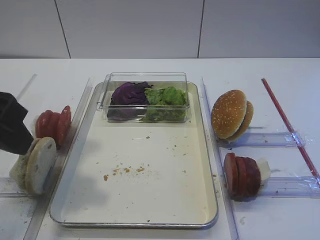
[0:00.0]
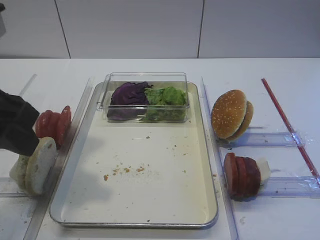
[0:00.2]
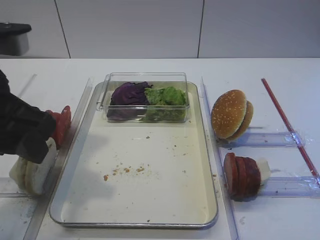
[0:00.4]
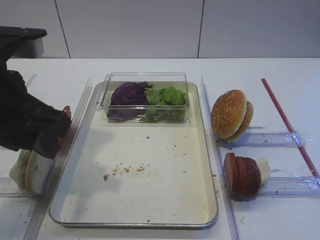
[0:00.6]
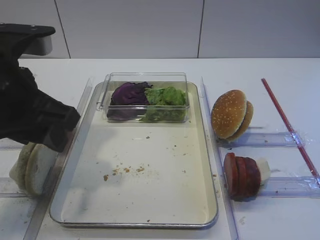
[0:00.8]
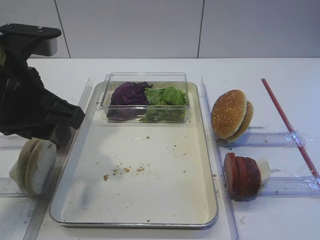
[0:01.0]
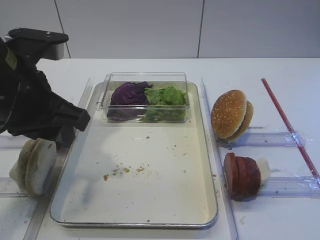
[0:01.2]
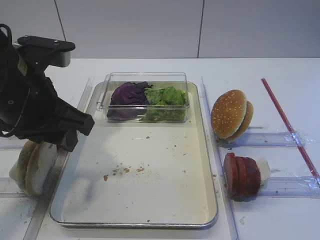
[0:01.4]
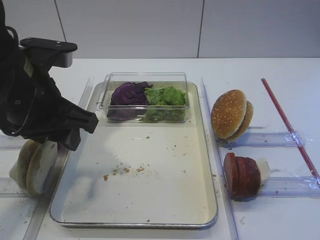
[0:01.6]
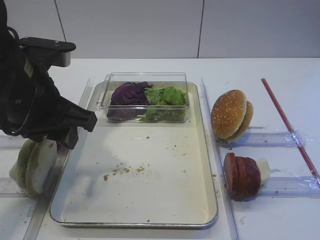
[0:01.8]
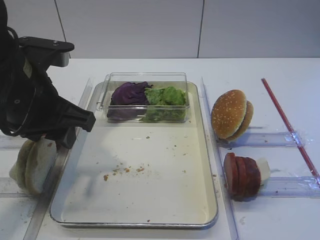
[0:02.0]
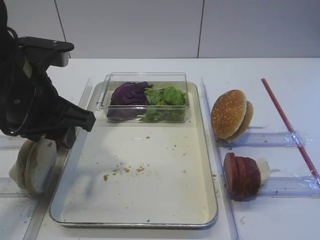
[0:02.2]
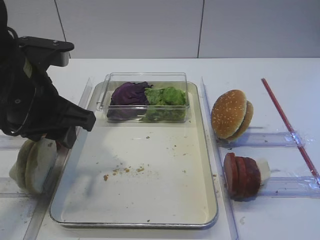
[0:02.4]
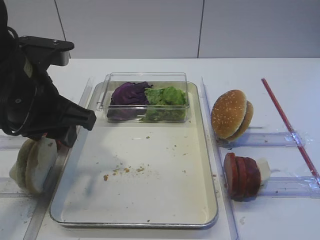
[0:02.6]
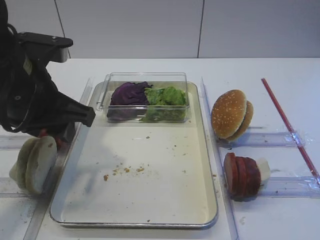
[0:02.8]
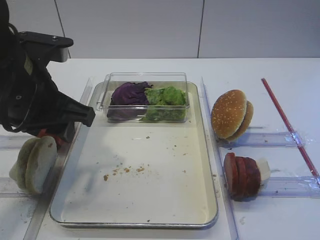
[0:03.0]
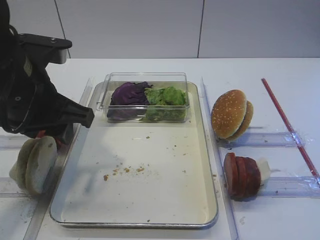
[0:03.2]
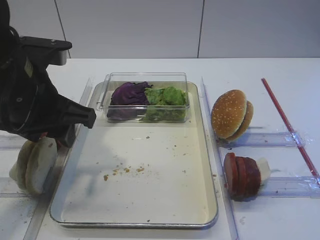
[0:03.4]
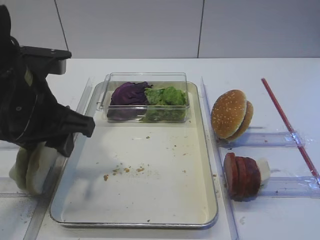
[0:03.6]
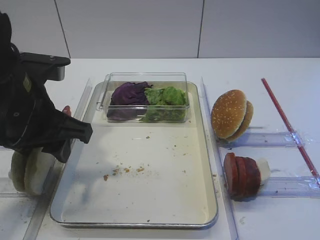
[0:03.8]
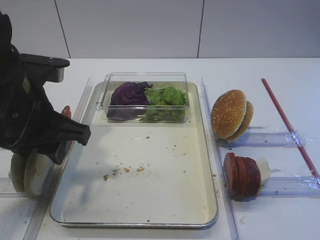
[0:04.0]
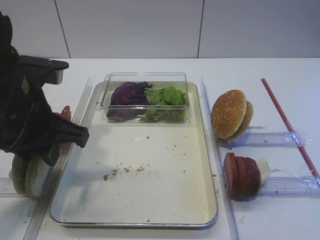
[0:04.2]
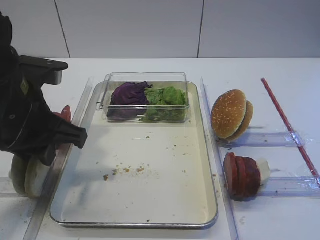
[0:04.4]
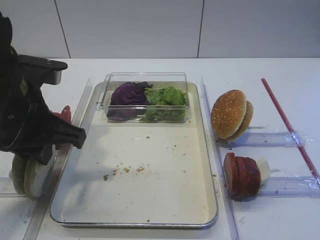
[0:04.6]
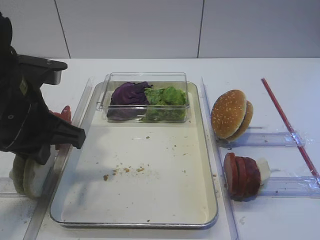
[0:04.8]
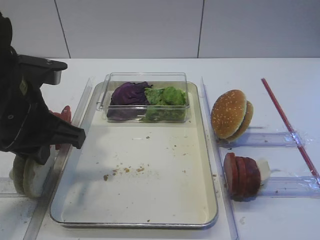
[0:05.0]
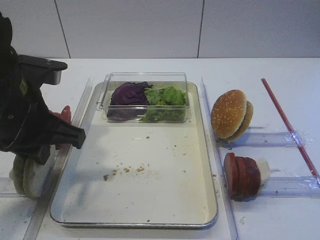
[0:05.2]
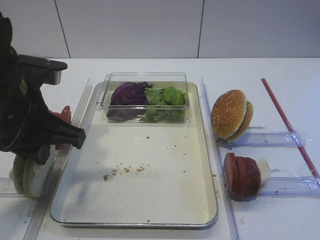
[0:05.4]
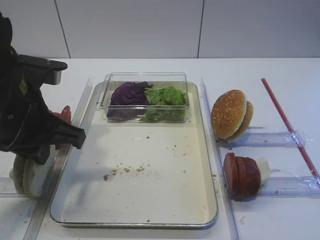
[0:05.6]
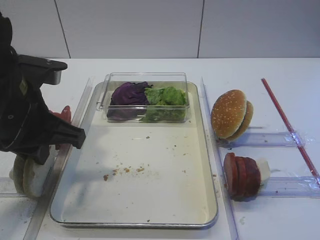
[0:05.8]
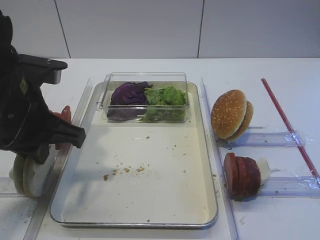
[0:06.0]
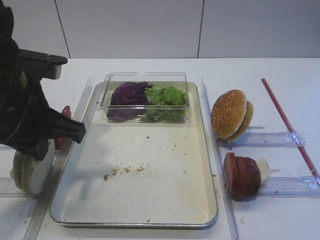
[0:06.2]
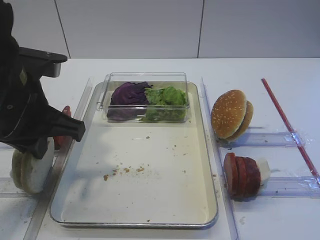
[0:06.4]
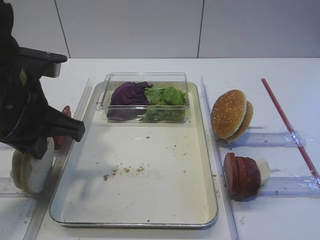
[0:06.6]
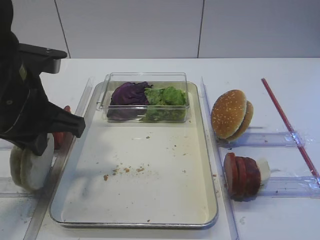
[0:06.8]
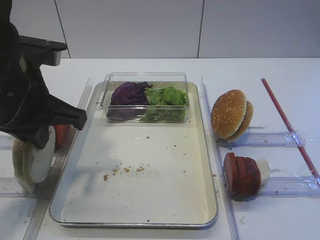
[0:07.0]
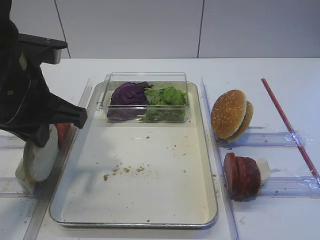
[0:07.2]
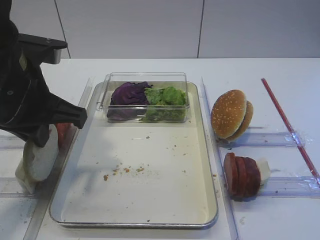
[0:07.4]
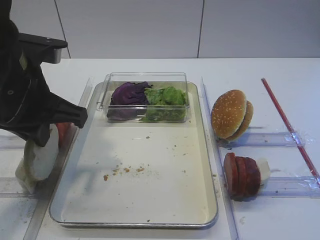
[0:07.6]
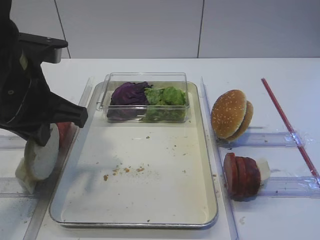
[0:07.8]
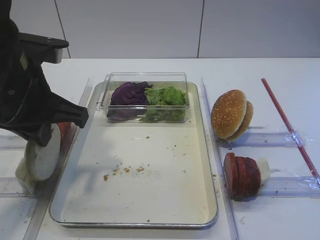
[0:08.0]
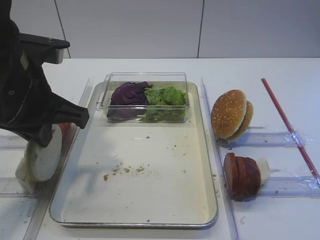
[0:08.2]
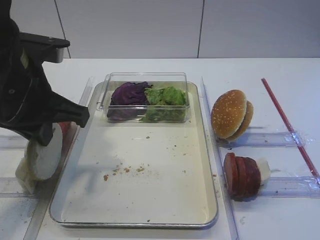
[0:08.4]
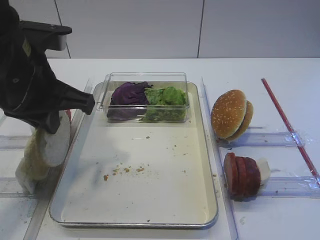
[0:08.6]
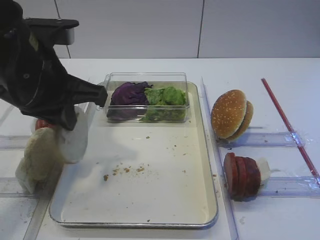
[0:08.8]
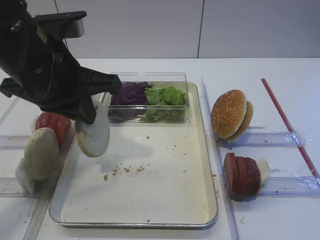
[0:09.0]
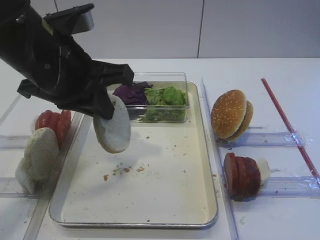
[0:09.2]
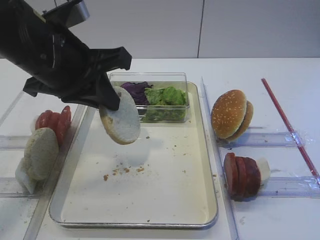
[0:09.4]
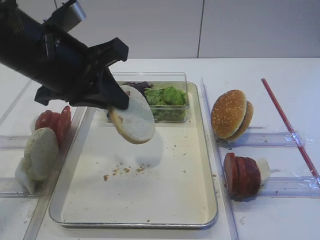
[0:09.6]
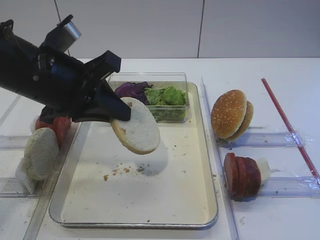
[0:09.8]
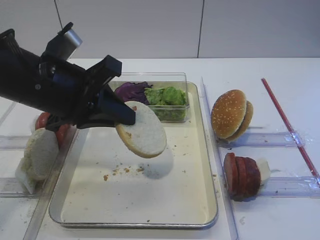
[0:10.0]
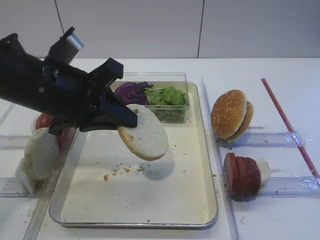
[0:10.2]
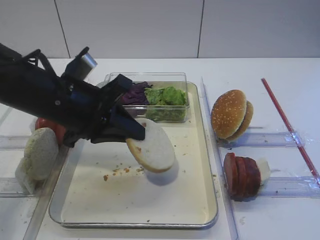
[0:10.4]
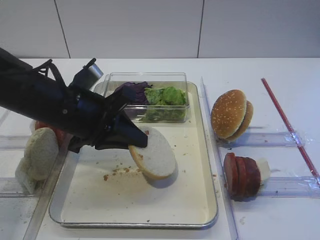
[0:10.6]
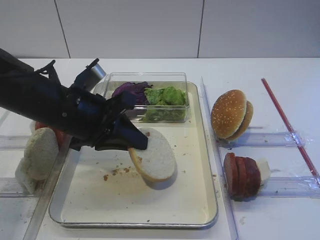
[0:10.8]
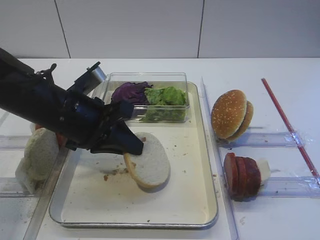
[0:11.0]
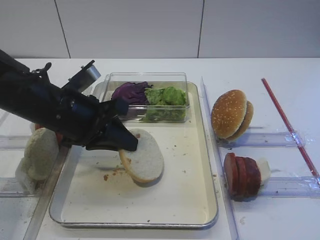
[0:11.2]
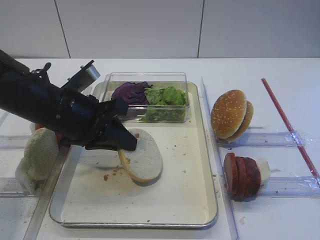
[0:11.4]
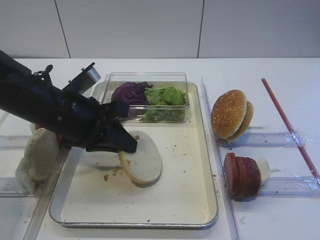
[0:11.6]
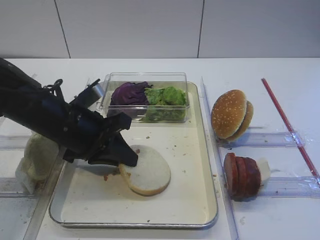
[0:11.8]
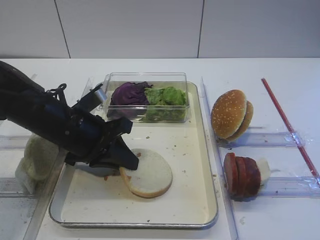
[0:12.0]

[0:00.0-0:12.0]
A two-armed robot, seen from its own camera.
Step, 0.0 to 8.0 s: Pick up the bread slice with the left gripper.
0.0 to 1.6 s: The left gripper moves forward and downward, about 10 cm.
1.6 to 4.4 s: The grippers move only a little.
4.4 to 6.0 s: Both grippers stay about where they are.
6.0 to 9.0 s: The grippers move only a little.
9.0 to 10.4 s: The left gripper travels downward by some 5 cm.
10.4 to 12.0 s: The left gripper goes about 5 cm downward.

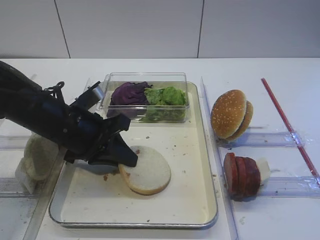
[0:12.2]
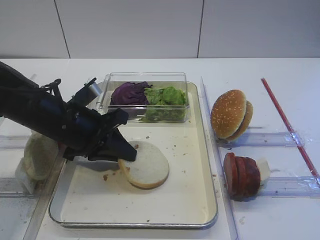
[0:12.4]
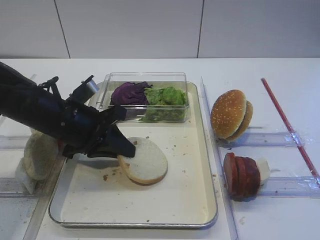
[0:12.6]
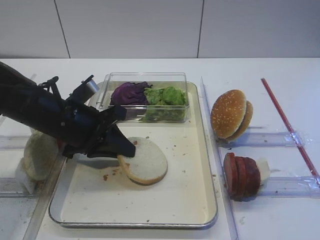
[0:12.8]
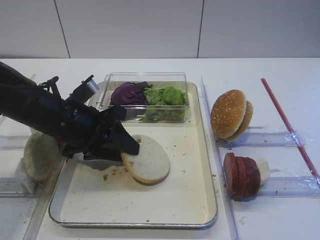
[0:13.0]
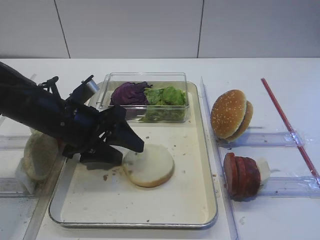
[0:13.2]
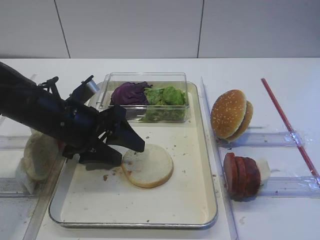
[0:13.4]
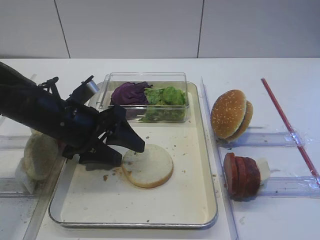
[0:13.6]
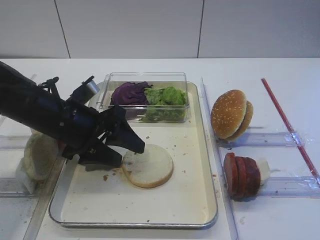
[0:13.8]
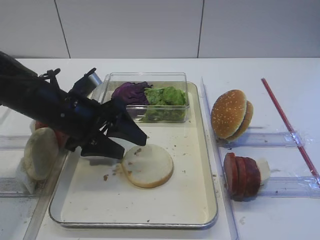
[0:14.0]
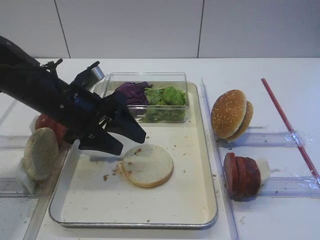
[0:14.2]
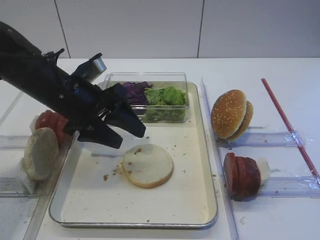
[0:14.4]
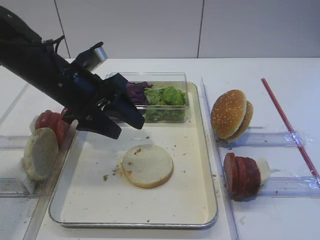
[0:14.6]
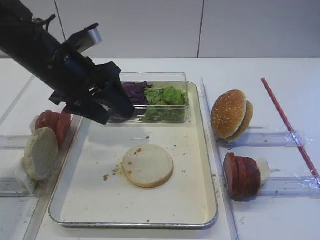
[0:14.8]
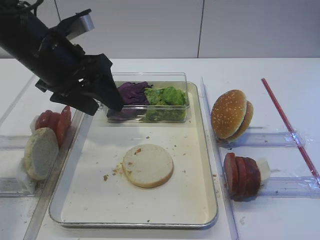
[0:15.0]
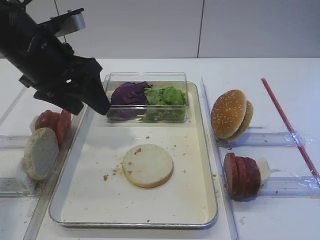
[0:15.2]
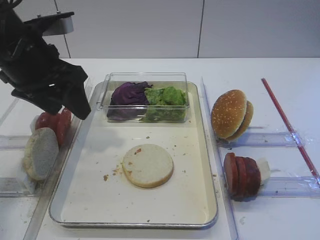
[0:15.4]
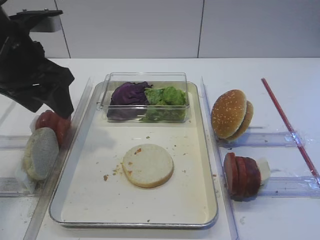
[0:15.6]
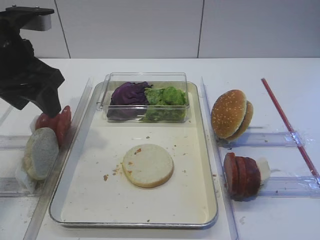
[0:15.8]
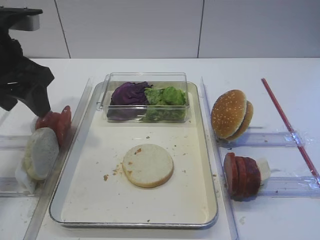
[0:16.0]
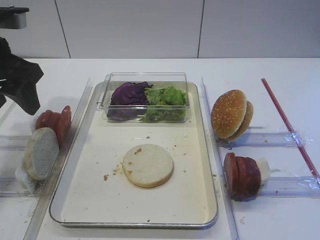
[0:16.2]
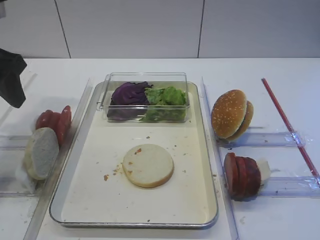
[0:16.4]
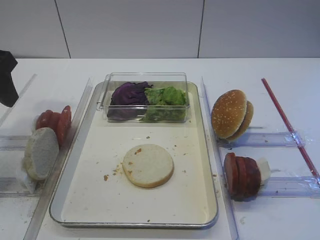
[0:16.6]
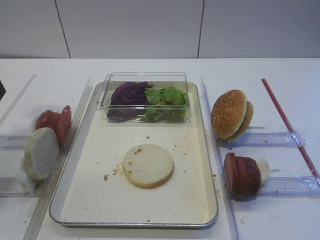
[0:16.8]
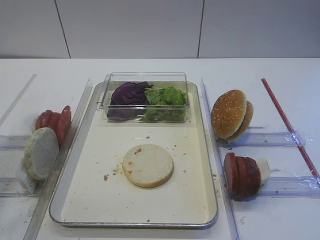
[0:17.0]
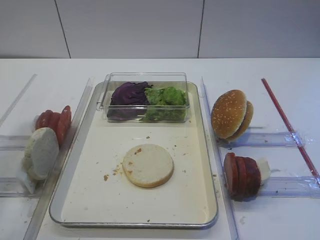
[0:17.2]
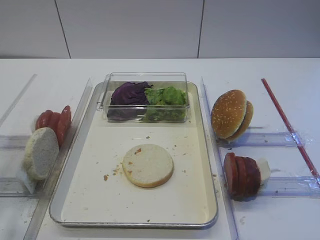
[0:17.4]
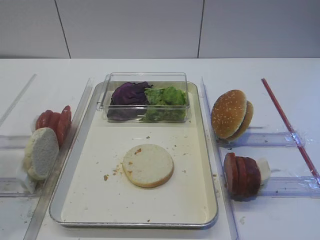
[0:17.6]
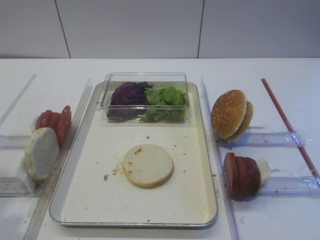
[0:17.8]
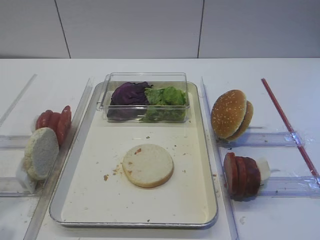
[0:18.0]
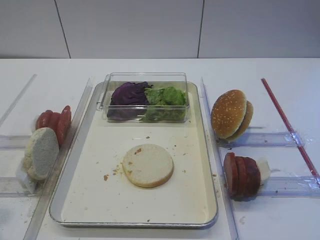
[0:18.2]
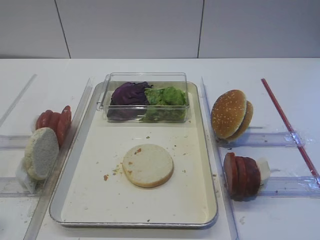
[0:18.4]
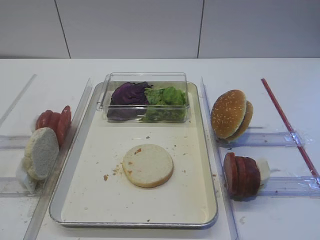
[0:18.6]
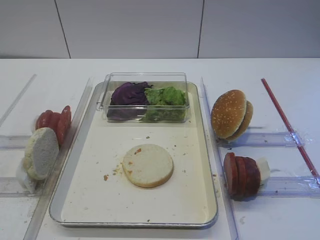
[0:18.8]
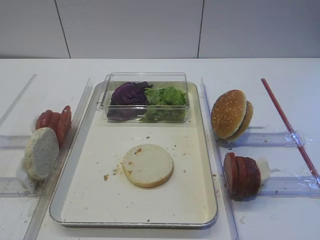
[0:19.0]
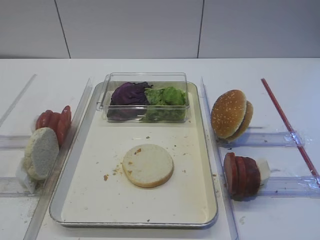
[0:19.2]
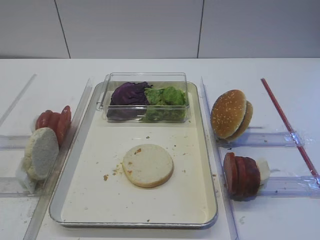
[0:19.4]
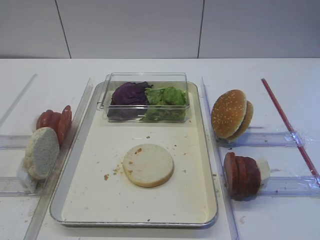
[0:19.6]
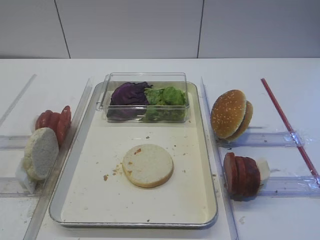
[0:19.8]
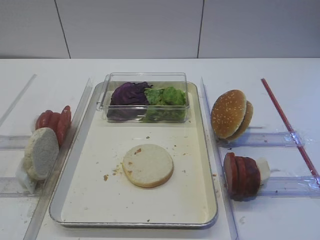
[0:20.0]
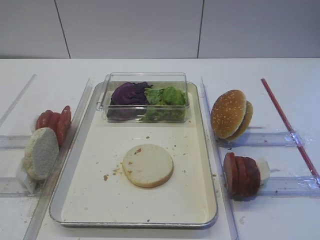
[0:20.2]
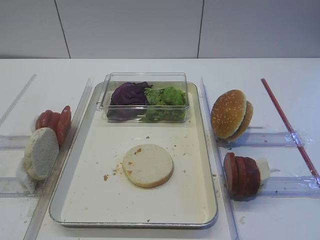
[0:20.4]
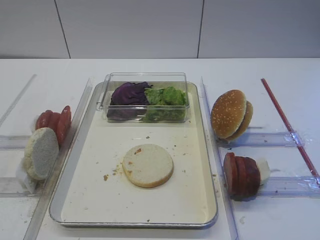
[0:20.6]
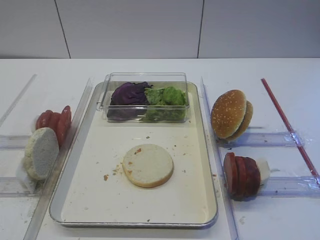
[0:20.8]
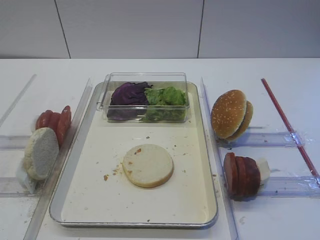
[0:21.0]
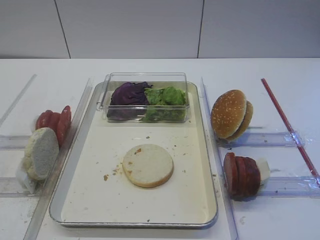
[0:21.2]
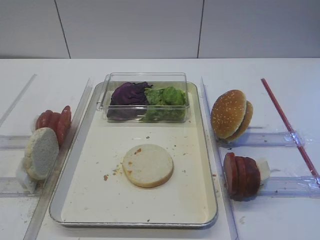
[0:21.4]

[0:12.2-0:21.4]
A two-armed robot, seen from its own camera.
12.2 to 13.8 s: The left gripper opens.
13.8 to 15.2 s: The left gripper moves upward, some 10 cm.
15.2 to 16.8 s: The left gripper heads to the left, backward and upward, covering approximately 15 cm.
16.8 to 18.4 s: The left gripper is displaced backward and downward by approximately 20 cm.
19.8 to 21.4 s: The two grippers keep their place.

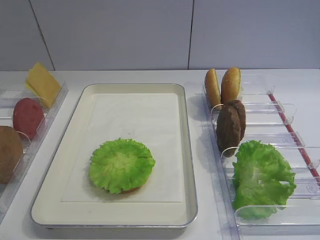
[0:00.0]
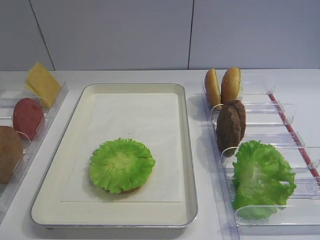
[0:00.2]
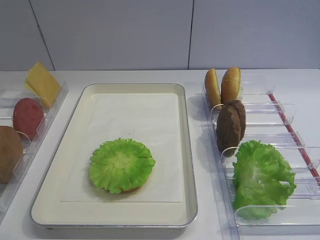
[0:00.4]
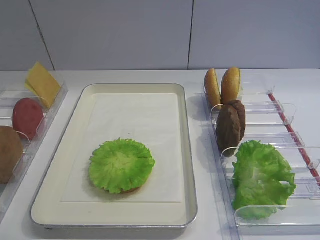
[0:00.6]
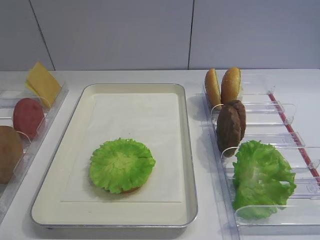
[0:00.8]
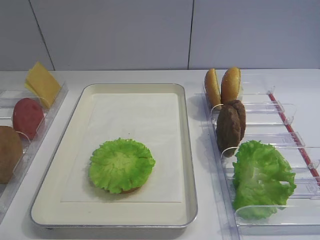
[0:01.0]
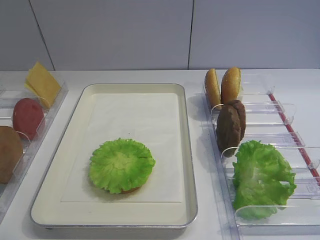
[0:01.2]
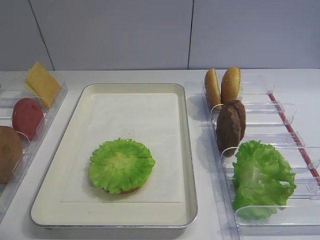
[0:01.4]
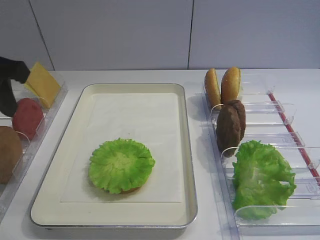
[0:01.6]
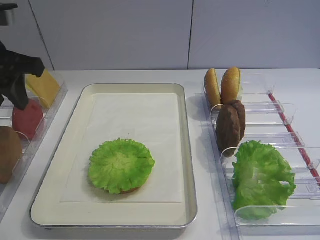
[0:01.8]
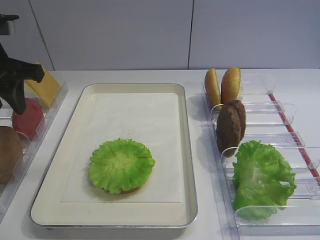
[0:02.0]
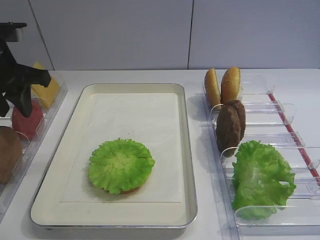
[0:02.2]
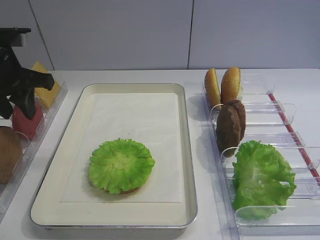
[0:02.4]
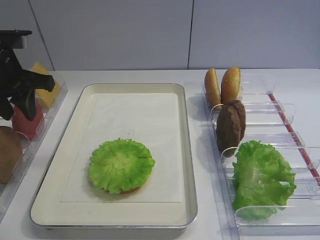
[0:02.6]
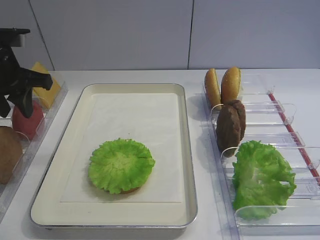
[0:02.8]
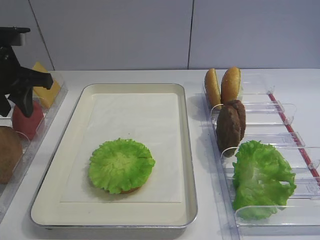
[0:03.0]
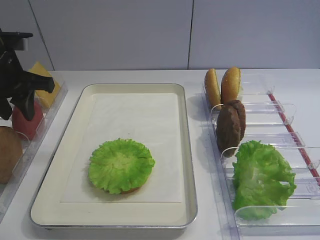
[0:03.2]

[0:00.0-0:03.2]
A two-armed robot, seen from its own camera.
1.6 to 3.2 s: The left gripper goes approximately 10 cm forward and downward.
